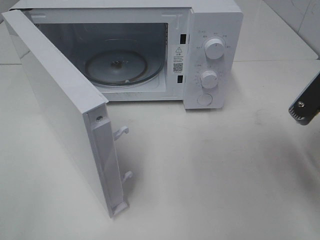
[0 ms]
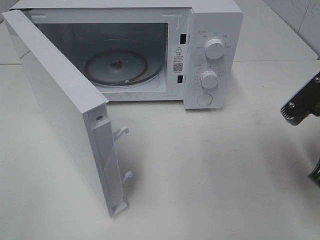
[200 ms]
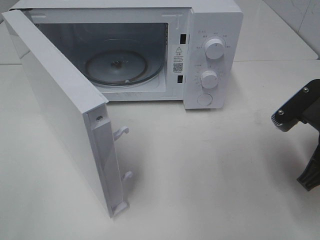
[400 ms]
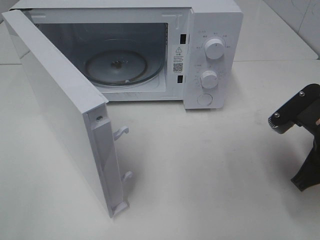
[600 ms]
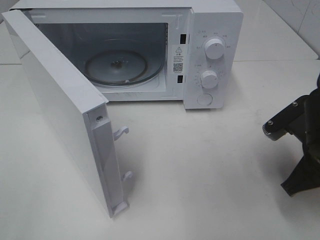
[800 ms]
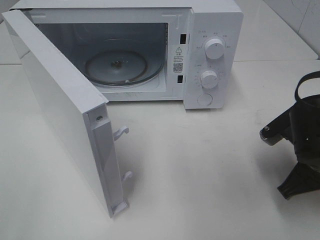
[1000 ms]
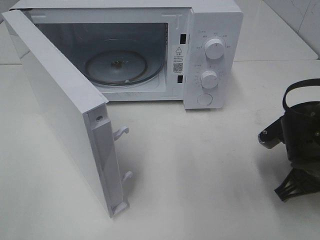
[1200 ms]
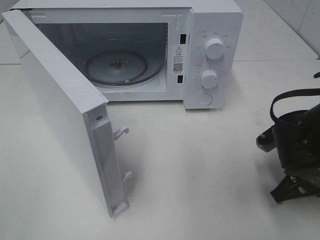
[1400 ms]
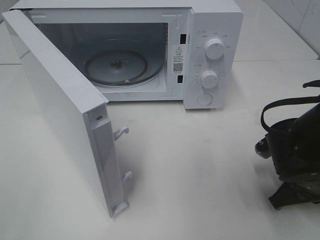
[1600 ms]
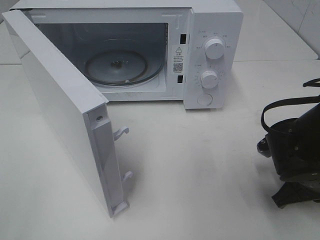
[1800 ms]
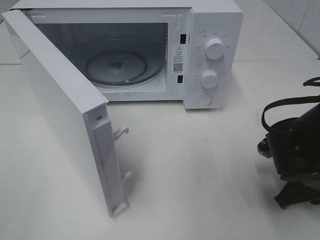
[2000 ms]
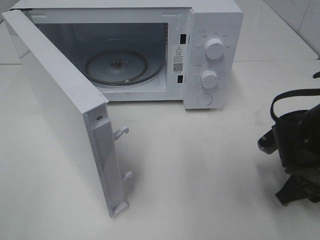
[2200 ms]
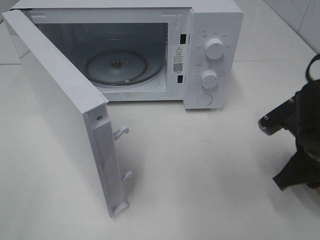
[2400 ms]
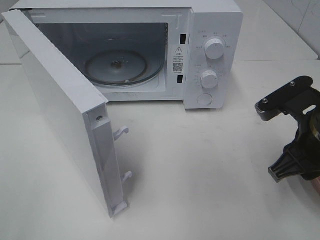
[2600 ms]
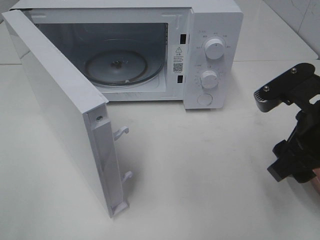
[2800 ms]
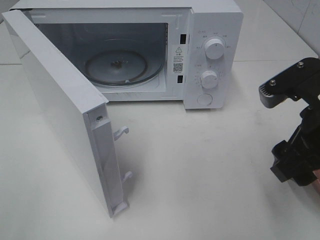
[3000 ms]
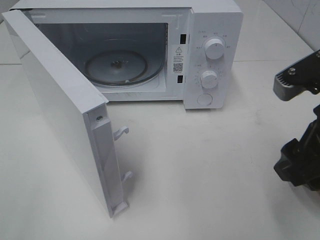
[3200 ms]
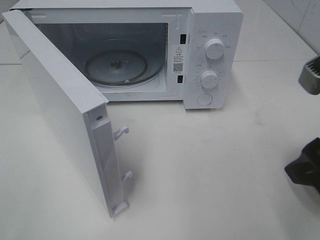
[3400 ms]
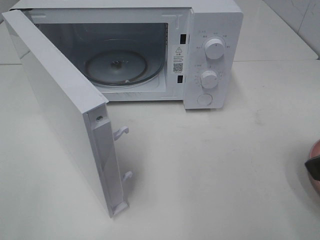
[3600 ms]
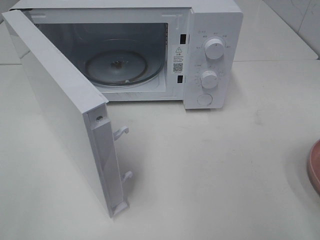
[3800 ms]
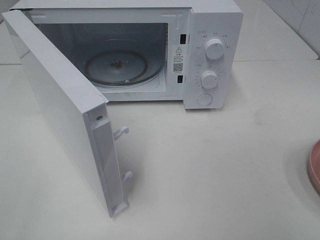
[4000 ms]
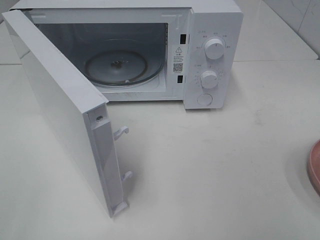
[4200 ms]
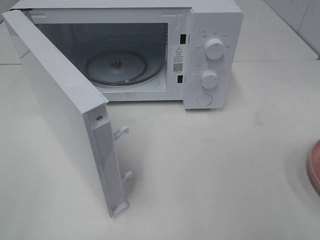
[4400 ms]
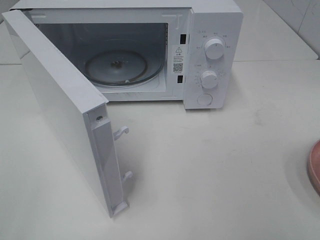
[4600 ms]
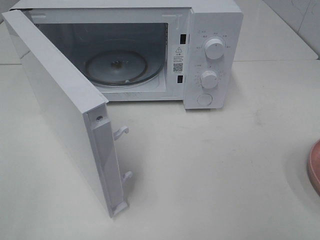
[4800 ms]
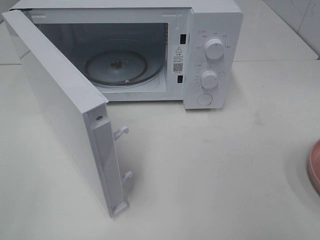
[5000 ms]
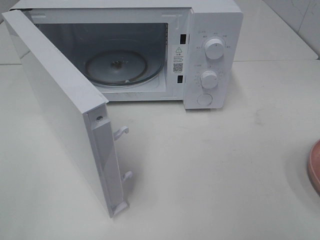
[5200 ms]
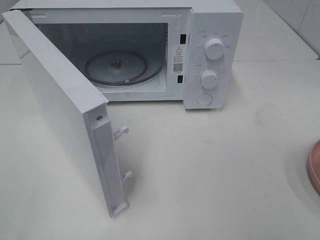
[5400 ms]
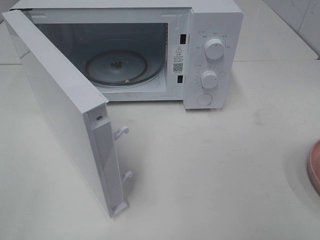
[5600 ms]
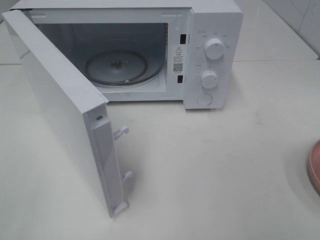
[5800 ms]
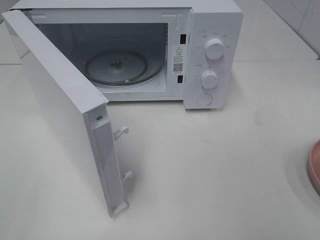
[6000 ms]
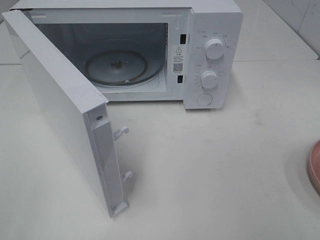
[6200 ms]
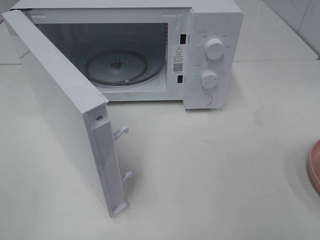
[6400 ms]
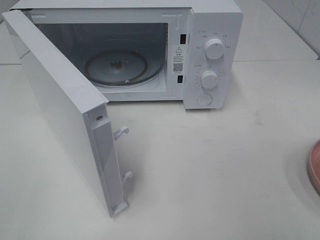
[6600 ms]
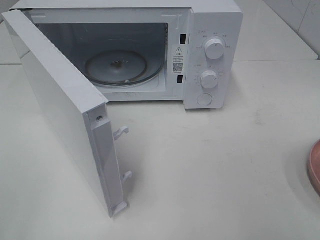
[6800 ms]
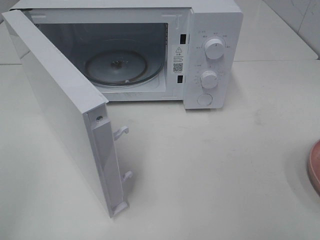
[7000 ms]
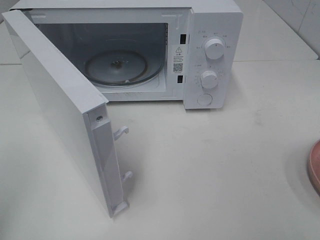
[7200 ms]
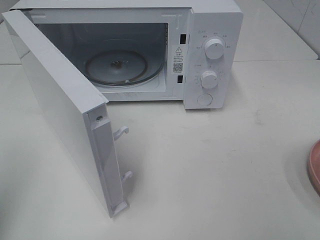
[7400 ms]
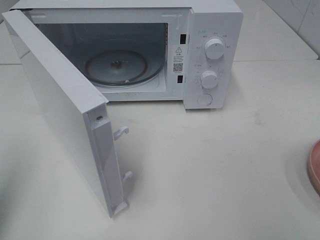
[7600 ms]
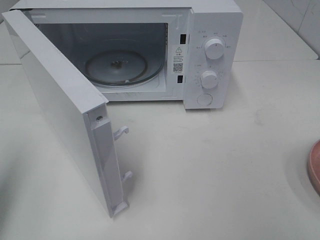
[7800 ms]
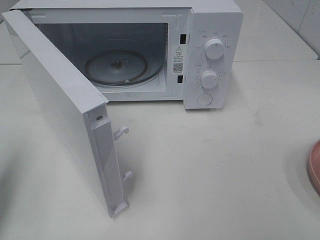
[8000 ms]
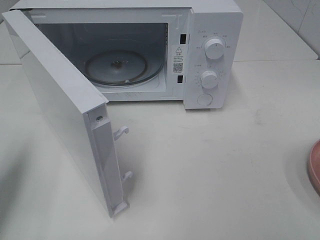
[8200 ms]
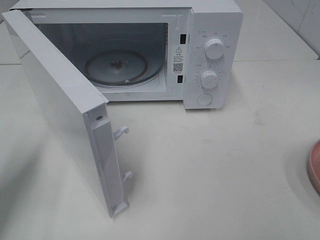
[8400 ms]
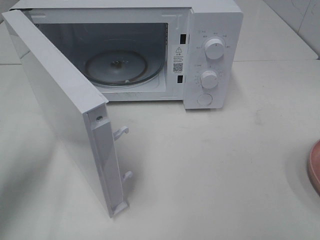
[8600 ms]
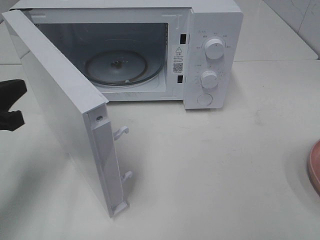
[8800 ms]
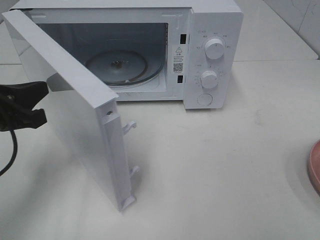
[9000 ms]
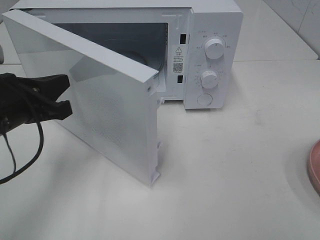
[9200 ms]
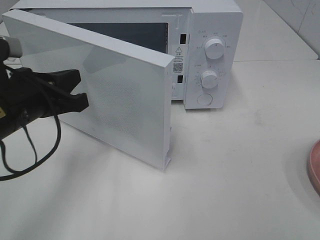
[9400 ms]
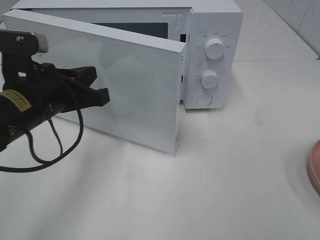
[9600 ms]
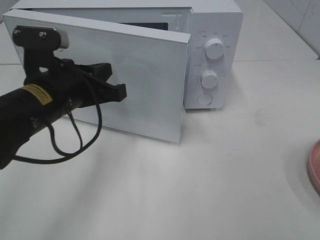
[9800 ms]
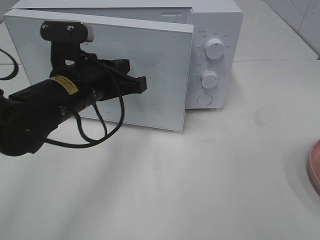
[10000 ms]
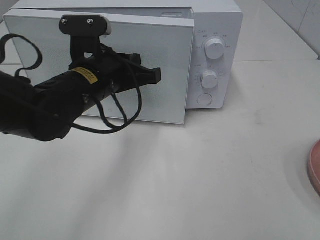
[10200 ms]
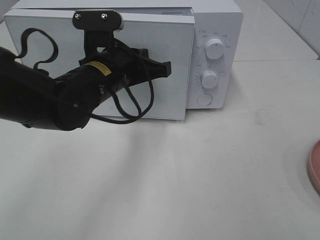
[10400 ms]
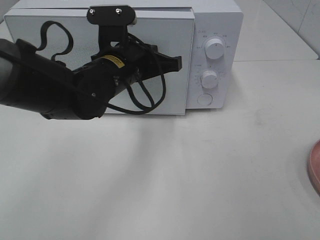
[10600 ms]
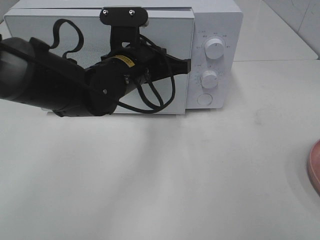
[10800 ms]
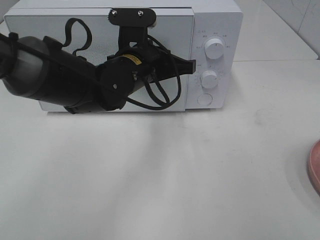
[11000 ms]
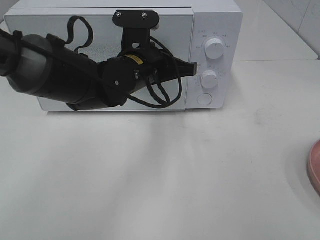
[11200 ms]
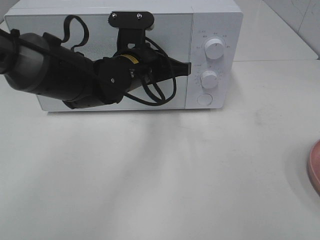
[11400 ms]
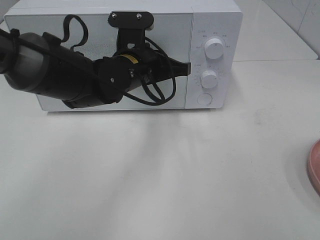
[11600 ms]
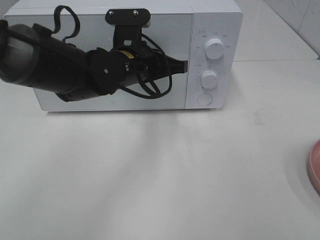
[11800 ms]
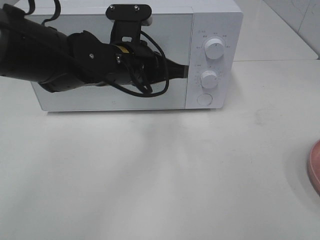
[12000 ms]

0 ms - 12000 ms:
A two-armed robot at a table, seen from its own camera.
Task of the whole recording: Heat the burger.
Step, 0 ms - 2200 ms: Right hand: place the plate on the table.
Step, 2400 ms - 11800 ms: Left hand: close the microwave door.
0 ms - 1600 ms: The right gripper is displaced downward by some 15 cm.
1600 ms - 3000 ms: The right gripper shifts some 15 cm upward, and opens.
3000 ms - 4400 ms: The right gripper goes approximately 20 cm backward and to the right.
6000 ms - 7600 ms: The left gripper heads forward, covering approximately 10 cm, and closes.
7600 ms - 9000 ms: The left gripper moves downward, forward and to the right, about 15 cm.
9000 ms - 10400 ms: The left gripper moves to the right and forward, some 20 cm.

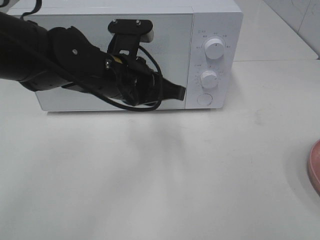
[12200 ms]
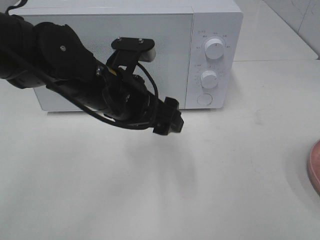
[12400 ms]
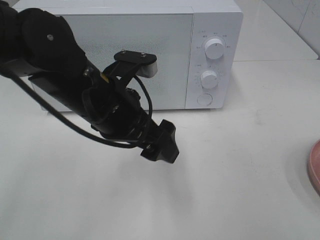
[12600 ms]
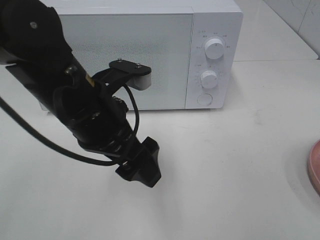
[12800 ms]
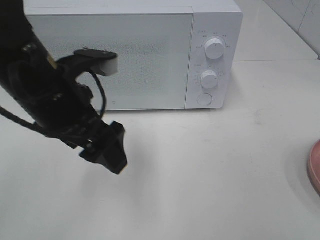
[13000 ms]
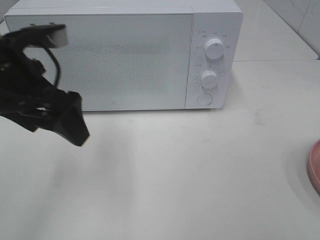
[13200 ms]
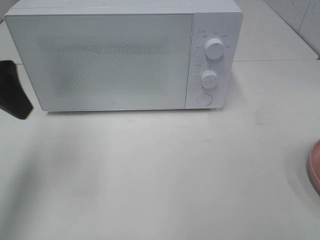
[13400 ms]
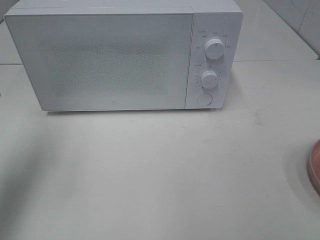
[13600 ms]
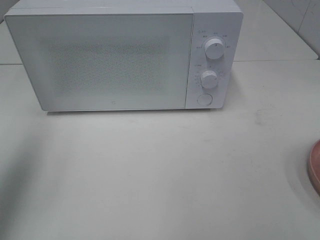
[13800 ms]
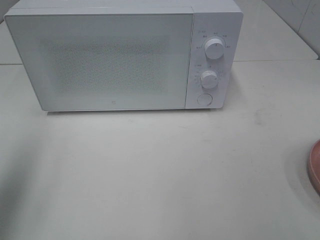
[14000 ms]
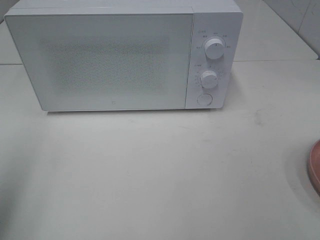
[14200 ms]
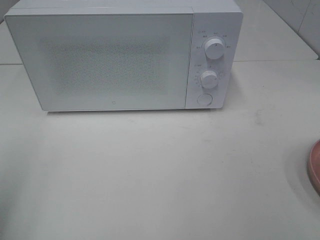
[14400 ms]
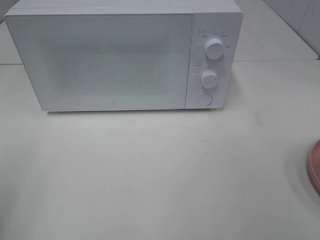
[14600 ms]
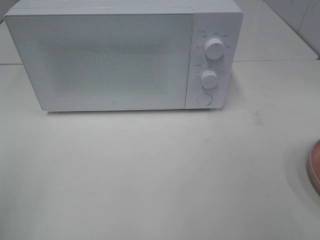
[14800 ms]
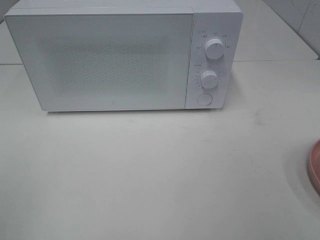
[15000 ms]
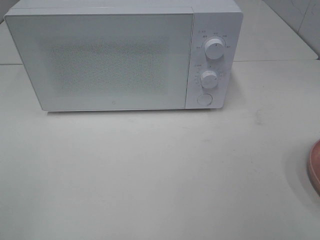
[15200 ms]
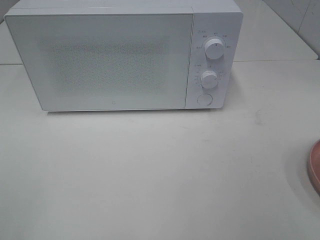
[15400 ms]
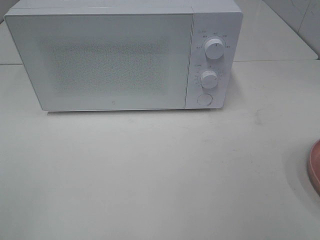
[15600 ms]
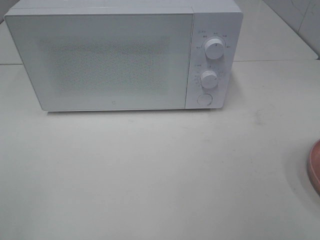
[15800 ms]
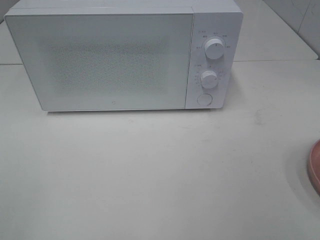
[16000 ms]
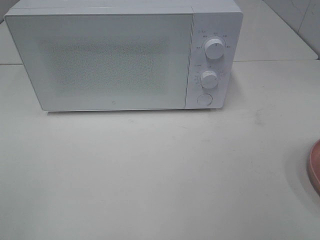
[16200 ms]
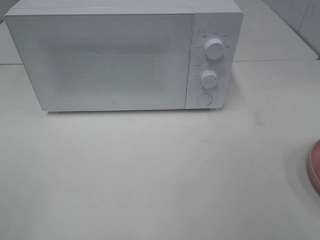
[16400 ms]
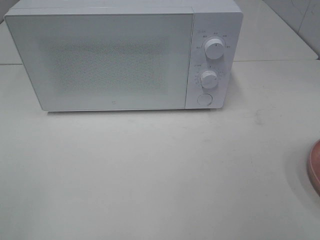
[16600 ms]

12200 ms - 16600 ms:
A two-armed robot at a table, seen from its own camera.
Task of the whole recording: Heat the burger.
12200 ms - 13600 ms: The left gripper shifts approximately 25 cm to the left and upward, and opens its fingers.
13600 ms - 15200 ms: The left gripper goes some 25 cm backward.
15200 ms - 16600 ms: Neither gripper changes place.

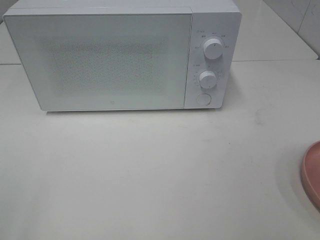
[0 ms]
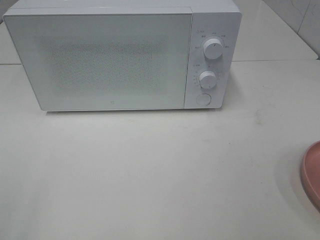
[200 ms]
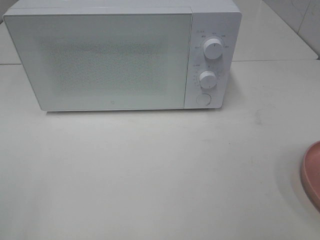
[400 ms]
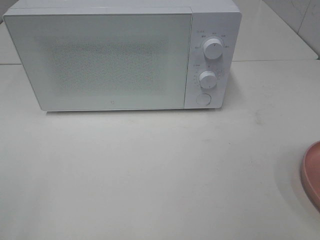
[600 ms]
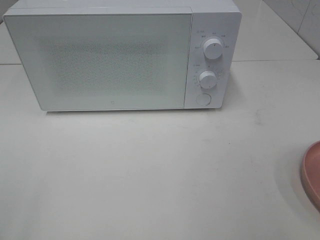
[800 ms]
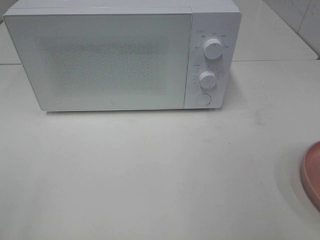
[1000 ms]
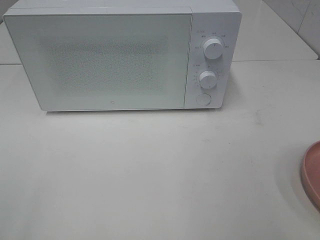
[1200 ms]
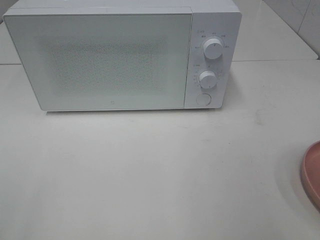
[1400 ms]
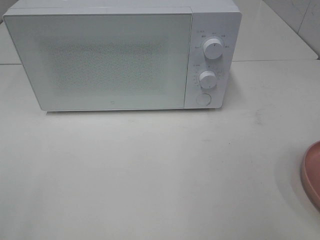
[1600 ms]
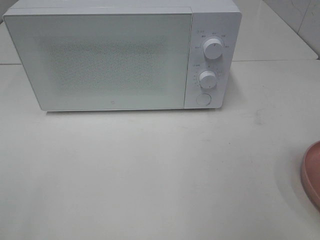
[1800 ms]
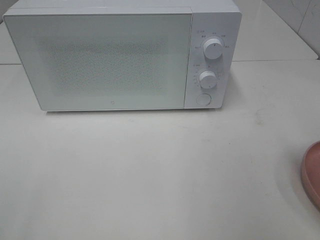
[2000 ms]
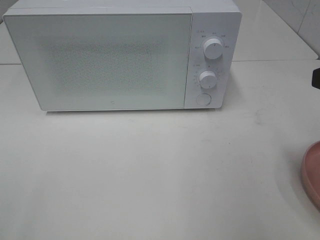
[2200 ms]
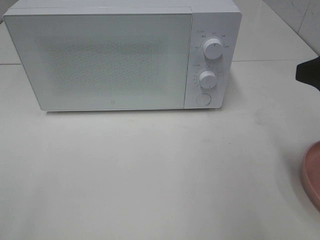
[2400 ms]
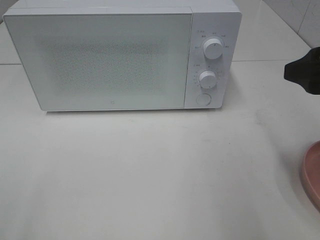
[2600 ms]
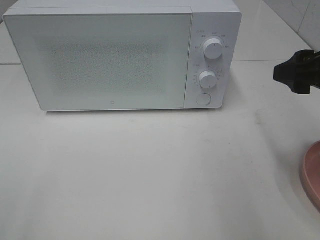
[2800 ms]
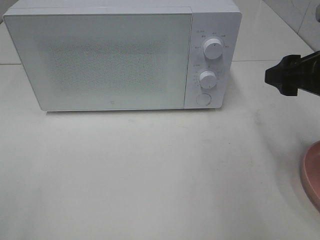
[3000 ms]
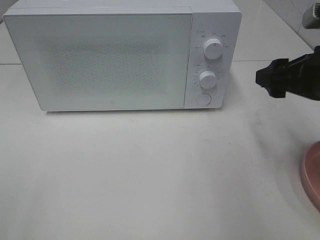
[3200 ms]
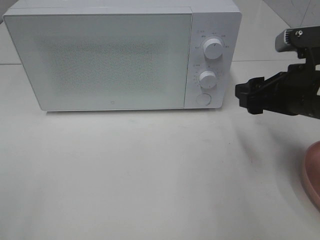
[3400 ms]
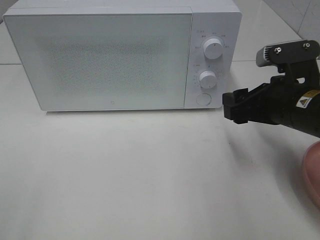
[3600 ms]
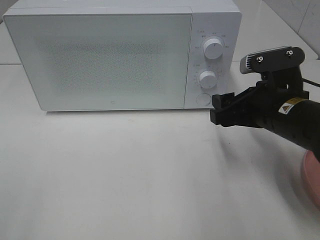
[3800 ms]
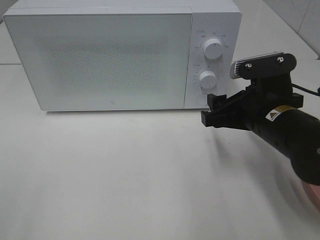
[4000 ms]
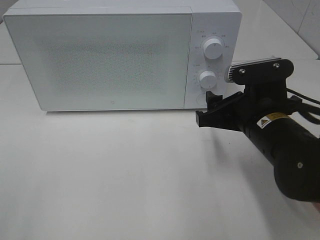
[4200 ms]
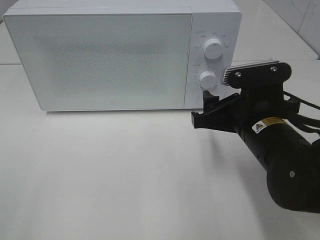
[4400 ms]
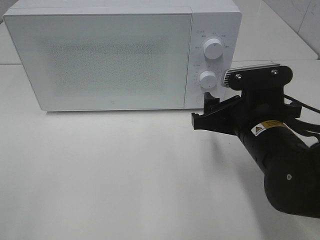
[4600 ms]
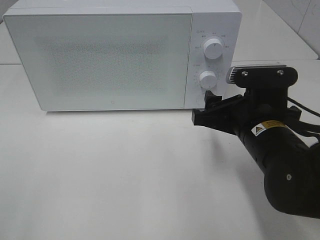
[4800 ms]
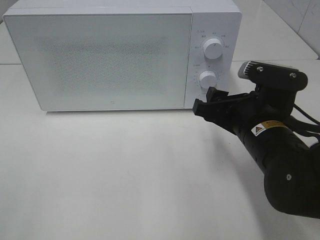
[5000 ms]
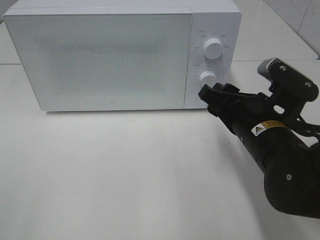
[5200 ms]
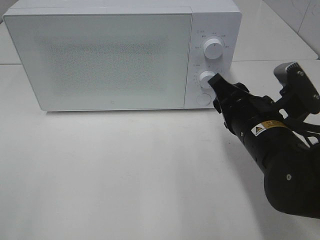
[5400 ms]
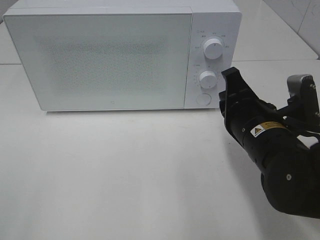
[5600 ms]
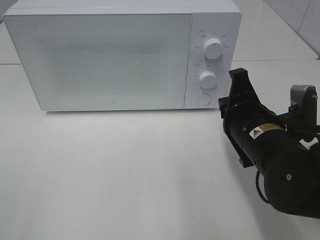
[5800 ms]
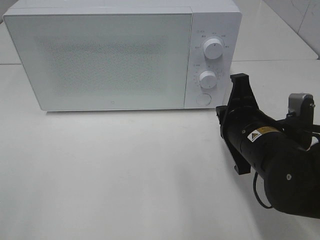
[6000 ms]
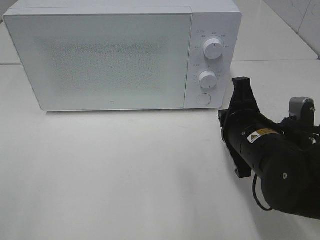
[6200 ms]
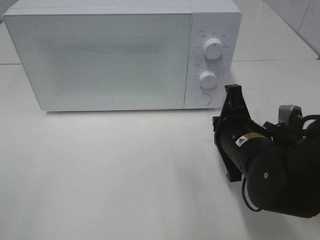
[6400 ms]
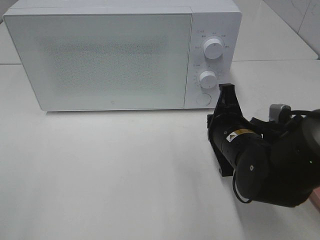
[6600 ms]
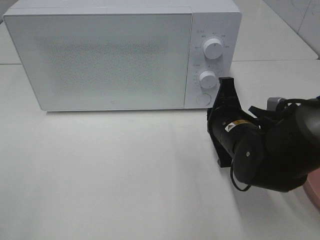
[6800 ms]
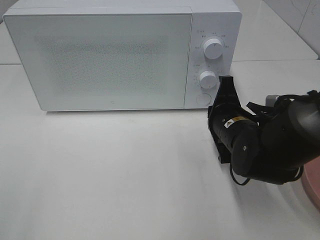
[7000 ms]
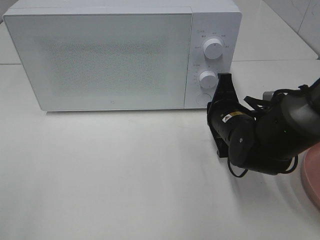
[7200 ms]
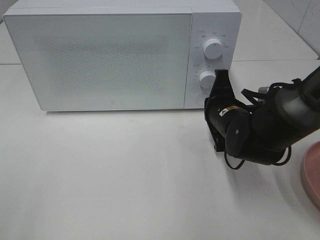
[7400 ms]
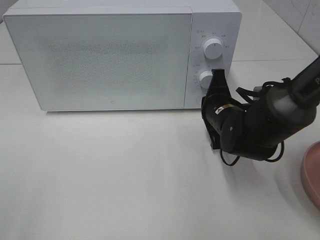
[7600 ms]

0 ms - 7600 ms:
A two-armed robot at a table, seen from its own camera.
Task of the whole recording: Heat the burger.
1600 ms - 3000 ms: The right gripper moves forward and downward, roughly 15 cm.
3000 ms - 4600 ms: The right gripper travels to the left and downward by approximately 15 cm.
4600 ms - 6000 ms: The right gripper closes its fingers.
6000 ms - 7600 ms: The right gripper travels forward and downward by some 10 cm.
